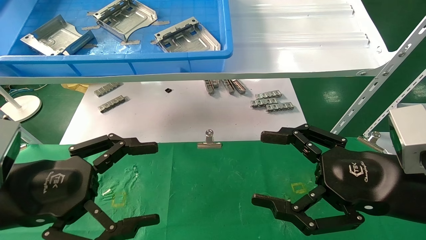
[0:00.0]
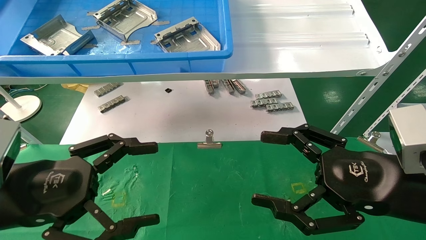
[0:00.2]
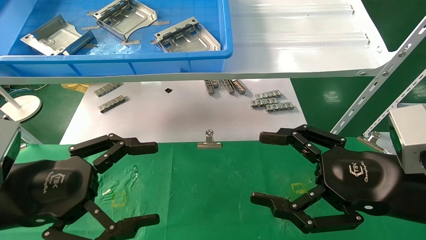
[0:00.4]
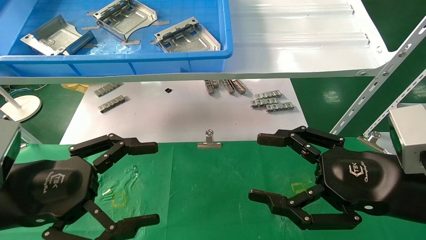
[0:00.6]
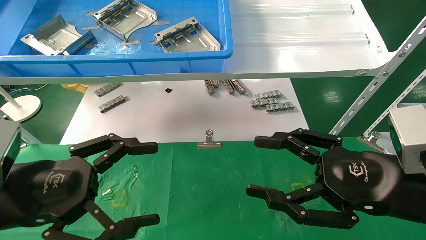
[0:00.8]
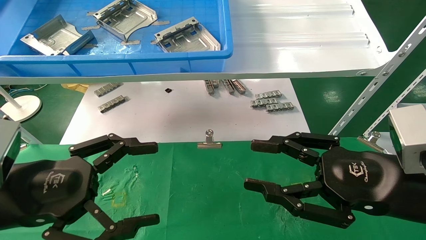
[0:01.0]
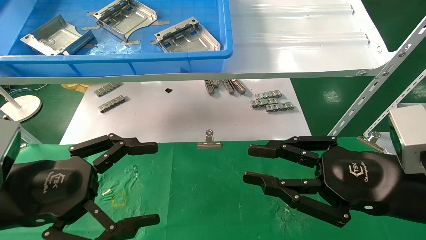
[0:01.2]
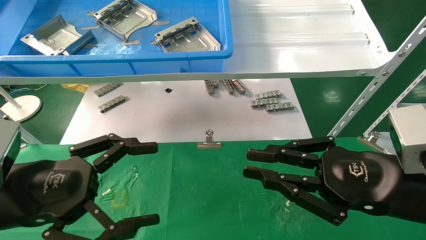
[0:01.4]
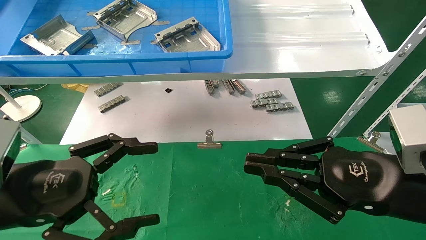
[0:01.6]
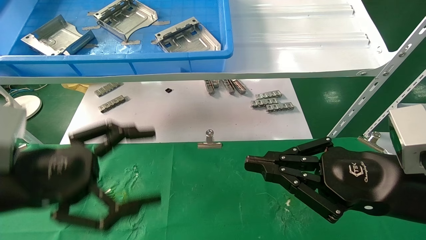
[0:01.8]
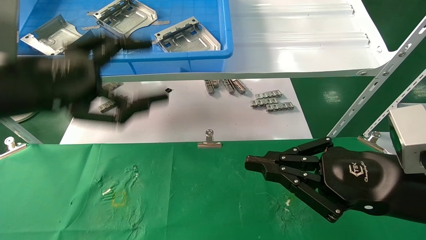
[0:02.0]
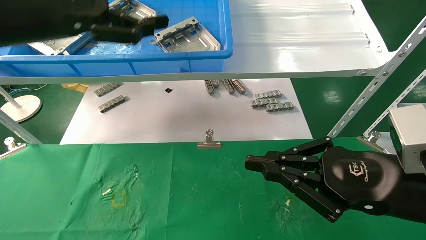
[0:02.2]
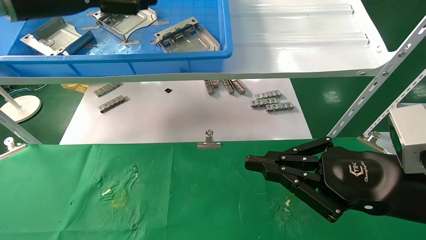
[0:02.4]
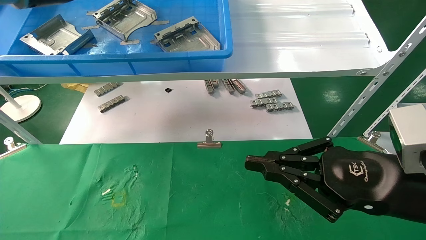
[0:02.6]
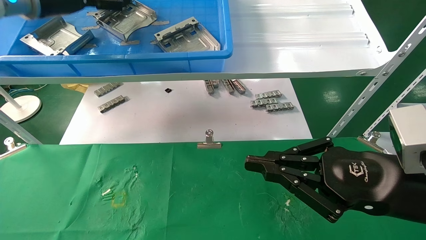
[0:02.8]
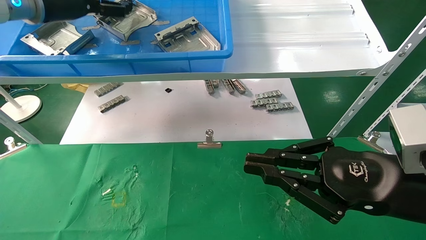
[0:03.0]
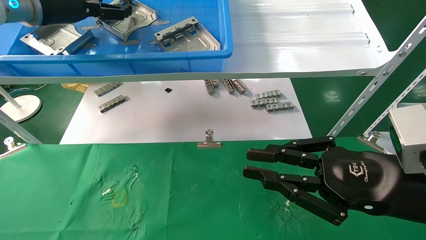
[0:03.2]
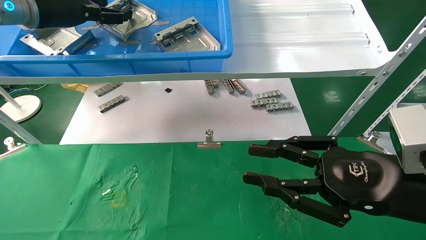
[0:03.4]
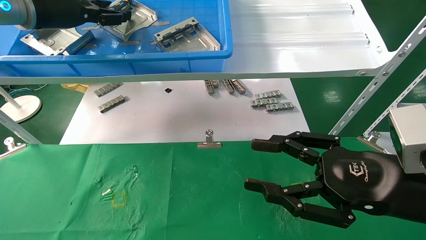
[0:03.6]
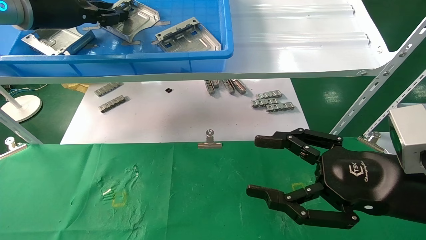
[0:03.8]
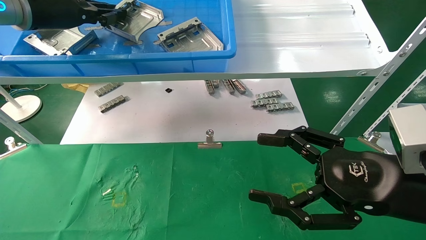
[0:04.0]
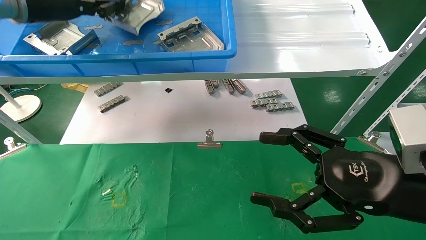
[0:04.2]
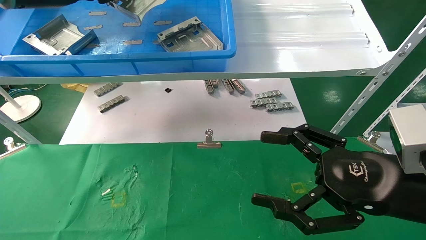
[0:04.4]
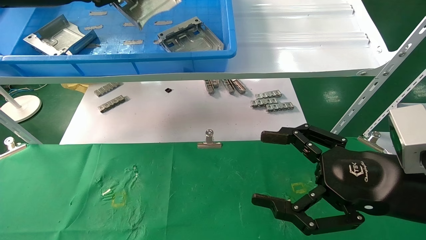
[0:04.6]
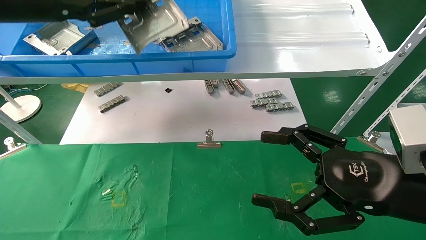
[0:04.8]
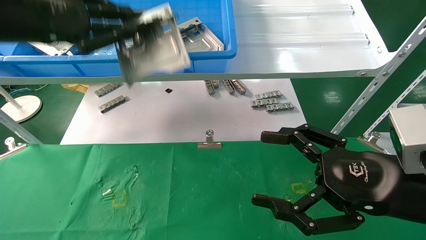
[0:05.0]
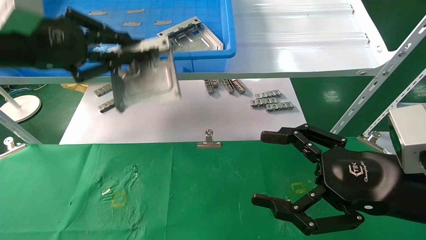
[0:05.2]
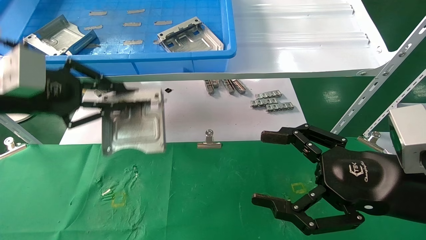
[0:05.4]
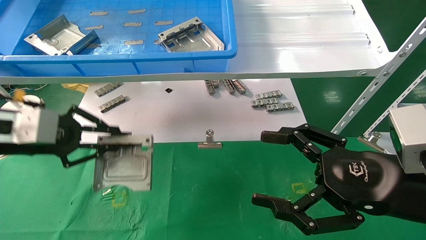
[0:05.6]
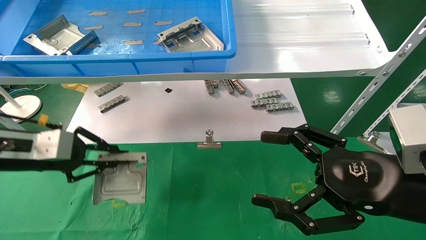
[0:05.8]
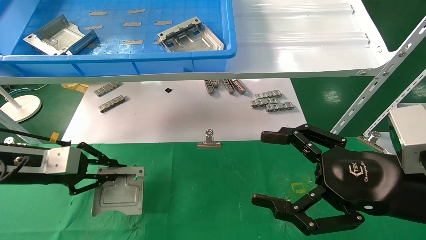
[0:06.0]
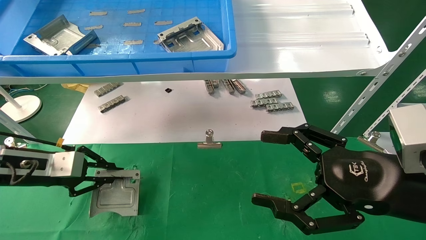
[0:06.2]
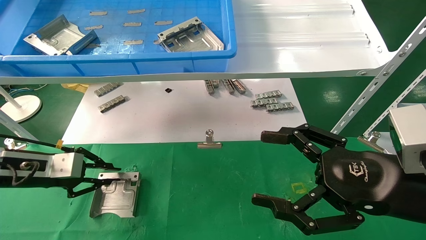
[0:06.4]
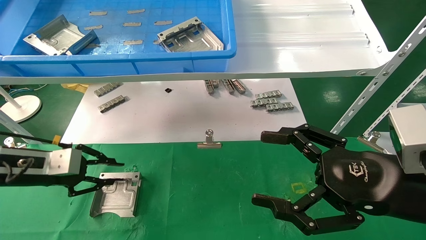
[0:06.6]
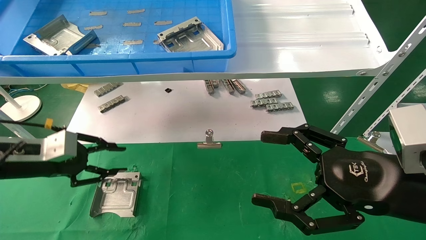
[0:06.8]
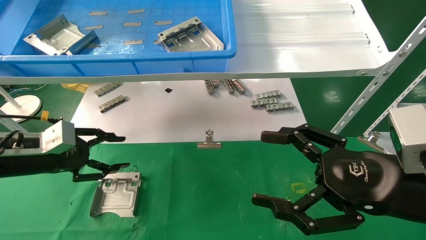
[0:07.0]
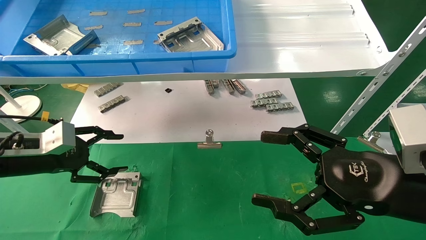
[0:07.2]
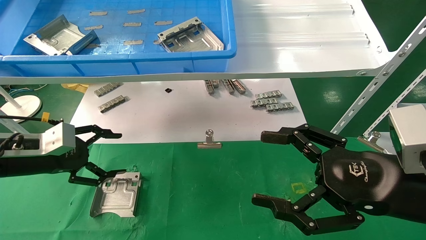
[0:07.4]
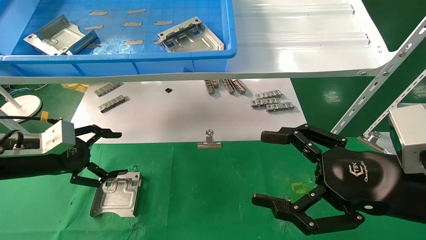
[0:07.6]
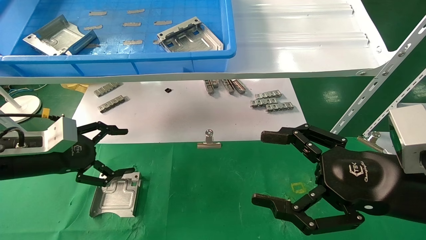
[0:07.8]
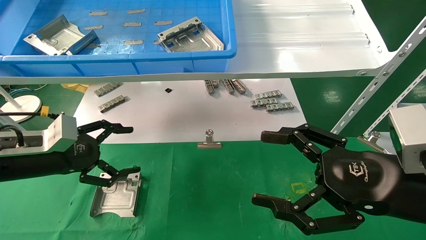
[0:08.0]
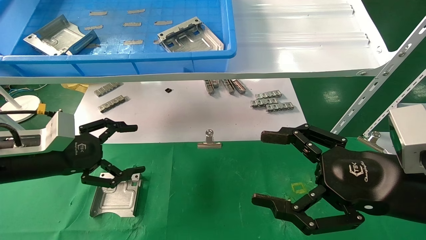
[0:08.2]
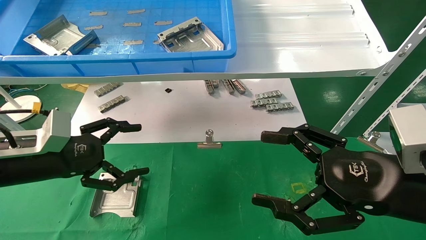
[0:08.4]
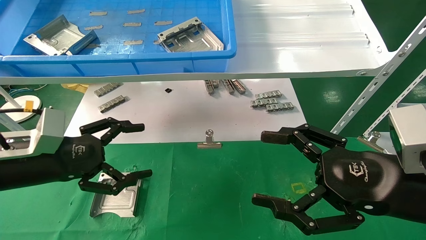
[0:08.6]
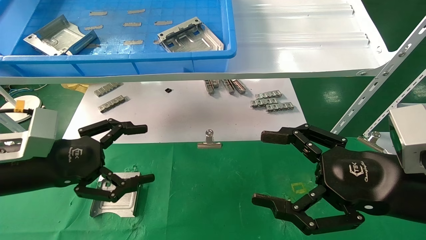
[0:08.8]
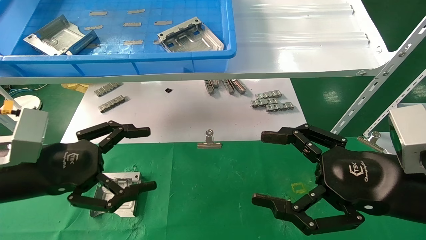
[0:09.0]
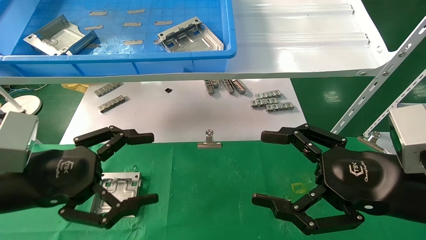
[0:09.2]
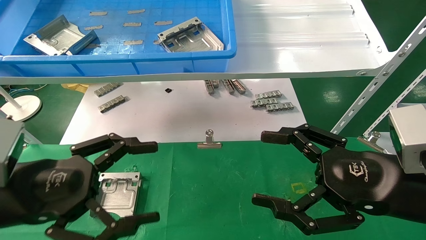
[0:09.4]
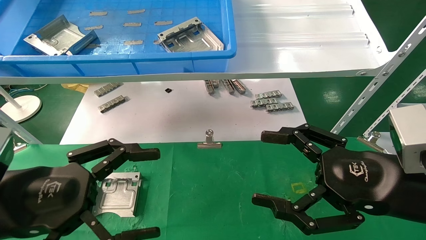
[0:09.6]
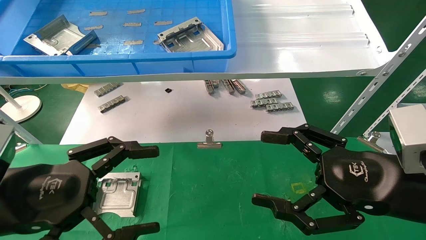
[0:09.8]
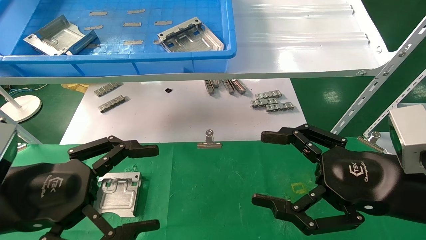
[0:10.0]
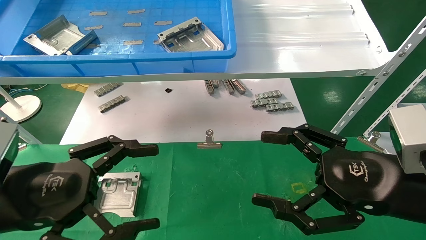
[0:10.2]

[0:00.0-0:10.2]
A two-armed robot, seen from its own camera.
Task of the whole recording: use the mechanical arm to pick up the parts and place them on the table.
Step, 1.4 to 4.2 s: Pick up the hard drive bracket from the feeding area.
Step, 4.4 to 7.2 s: Place the hard drive bracket into the box.
0.0 to 1.4 s: The right gripper closes up.
1.4 to 3.0 s: The left gripper goes approximately 35 cm upward and forward.
3.0 to 4.4 s: The right gripper opens up; the left gripper closes.
4.4 to 5.8 s: The left gripper is displaced downward by roughly 25 cm.
5.8 to 7.2 s: The left gripper opens.
7.2 to 8.8 s: The left gripper heads backward and to the right, covering approximately 10 cm, and opens up.
8.8 to 10.2 s: The left gripper shifts some 10 cm backward.

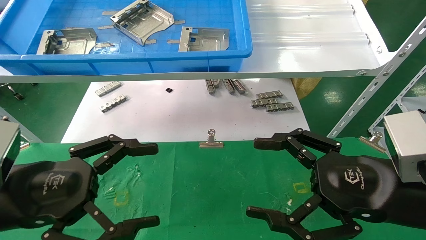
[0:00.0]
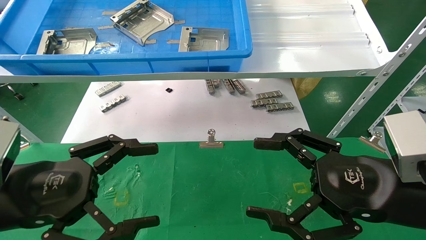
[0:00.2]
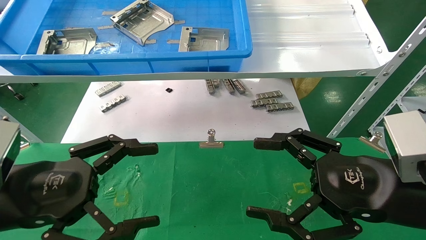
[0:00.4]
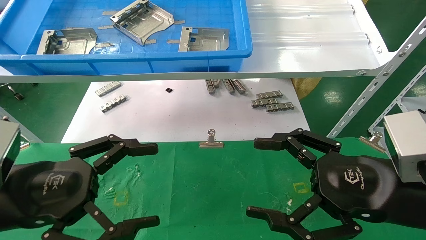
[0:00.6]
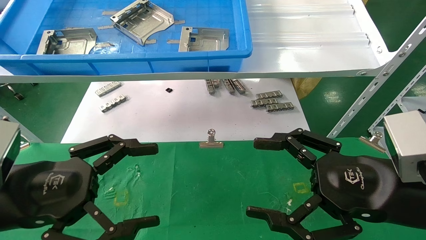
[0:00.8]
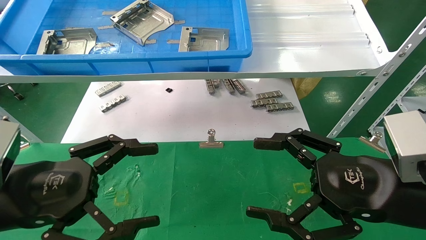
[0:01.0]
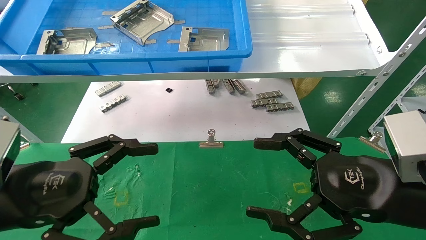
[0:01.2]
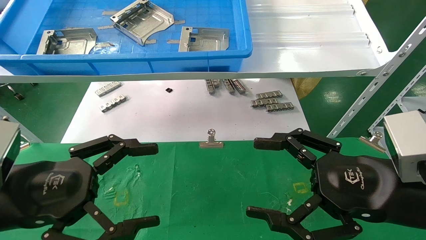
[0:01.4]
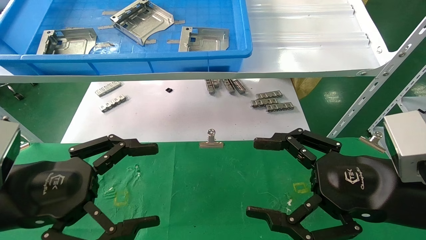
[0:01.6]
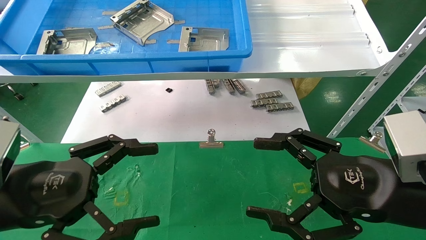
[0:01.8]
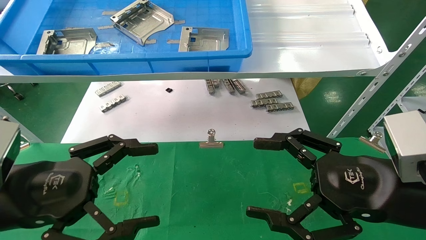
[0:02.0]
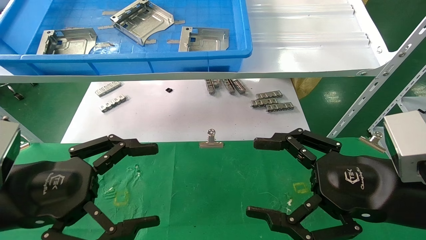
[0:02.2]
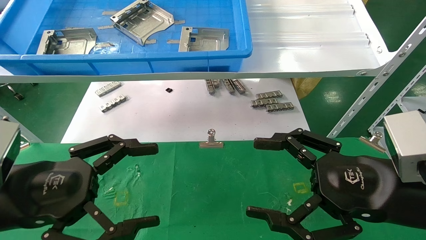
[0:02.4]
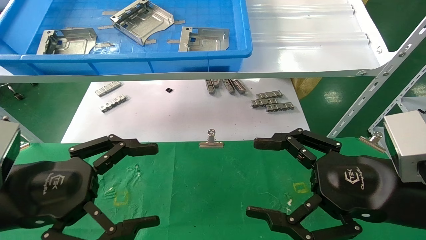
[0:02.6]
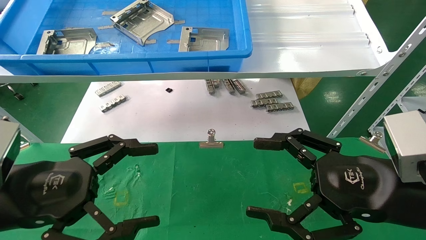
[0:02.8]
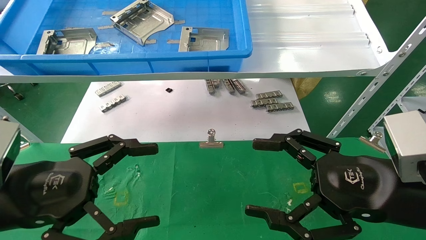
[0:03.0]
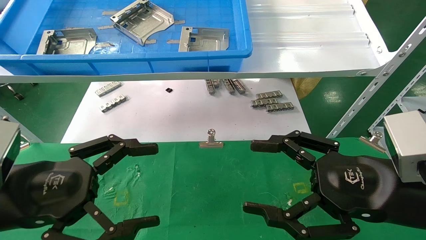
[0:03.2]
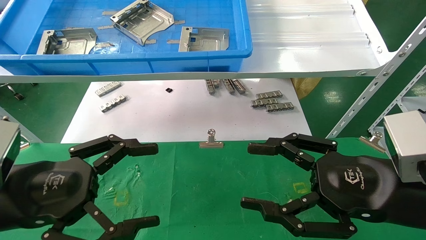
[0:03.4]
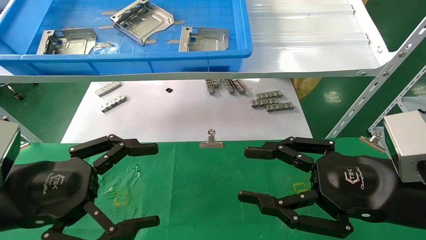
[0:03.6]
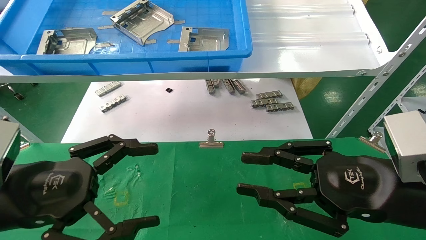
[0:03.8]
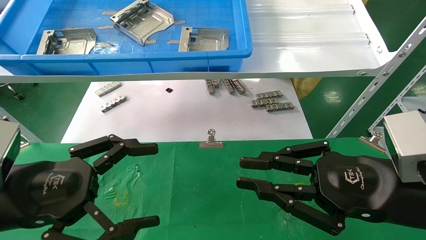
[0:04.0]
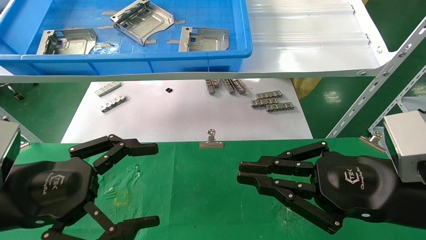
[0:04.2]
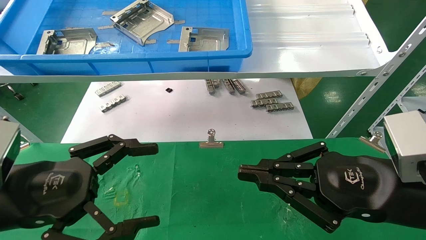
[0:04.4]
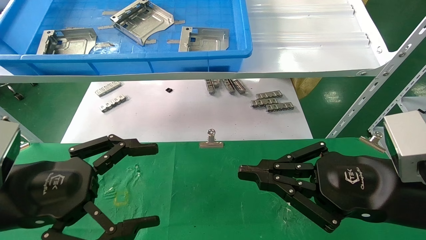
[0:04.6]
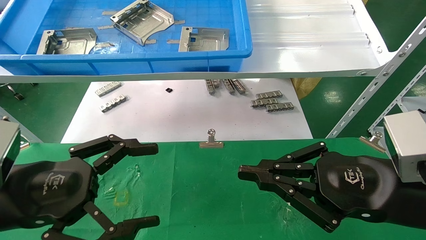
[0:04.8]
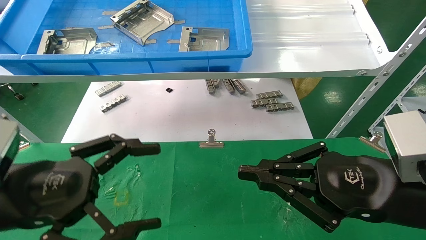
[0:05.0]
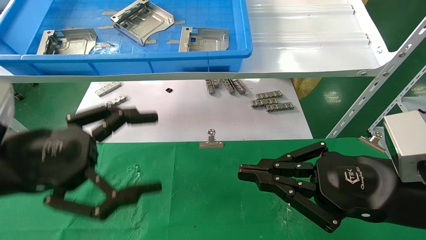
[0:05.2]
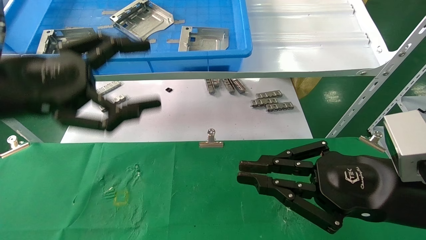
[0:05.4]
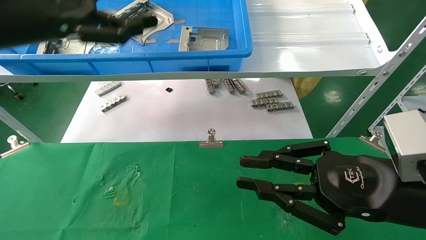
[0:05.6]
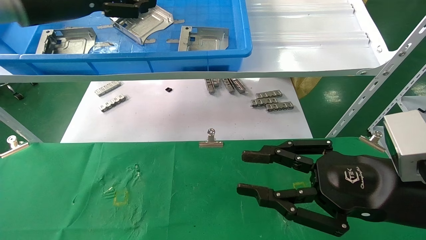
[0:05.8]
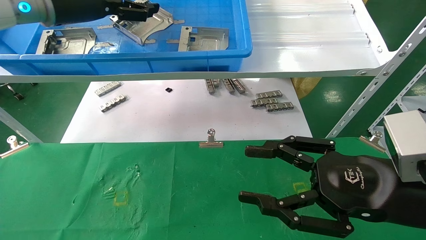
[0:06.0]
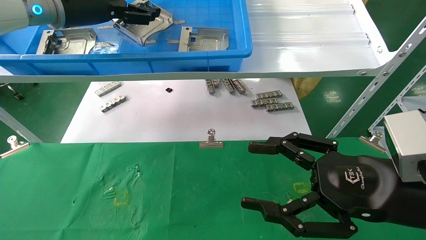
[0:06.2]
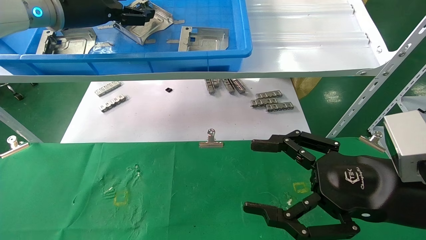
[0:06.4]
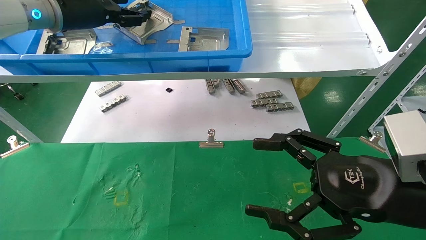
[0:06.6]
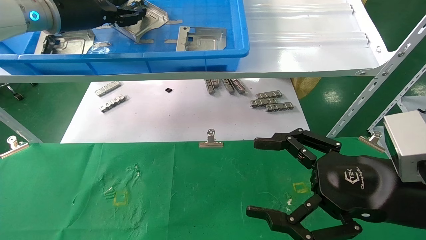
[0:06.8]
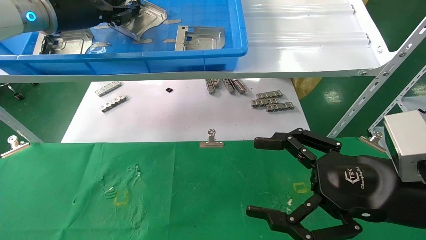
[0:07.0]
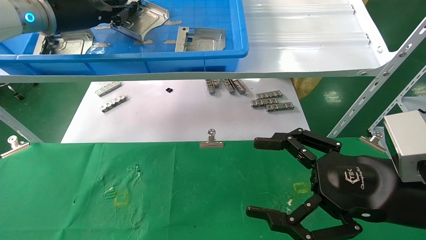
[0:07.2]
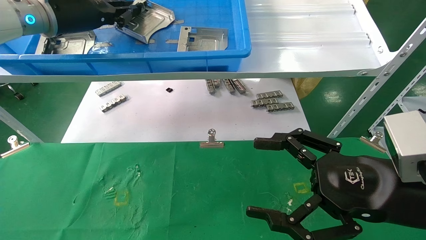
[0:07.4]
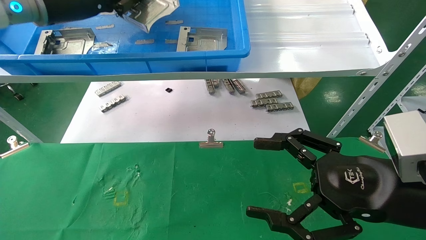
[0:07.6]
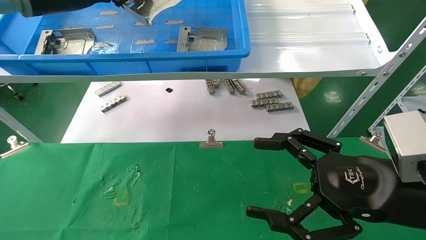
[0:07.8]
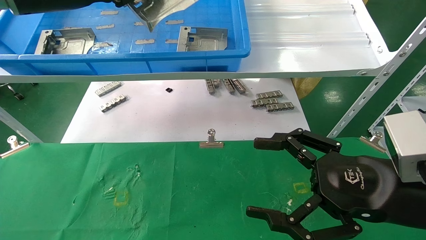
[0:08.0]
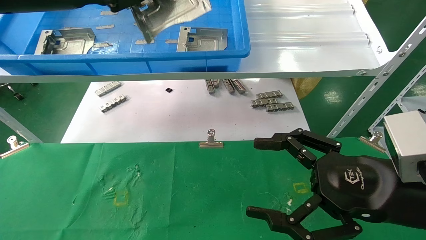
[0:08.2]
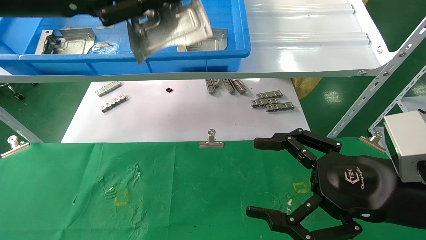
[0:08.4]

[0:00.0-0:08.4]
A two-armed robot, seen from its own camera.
Task of the whole recording: use the mechanical arm to pick up the parts and place them on the table.
Step, 5.2 to 7.2 s: Pick up the hard drive bracket from the feeding area.
0.0 to 2.8 s: Both grippers stay about where they are.
2.8 to 4.2 s: The right gripper closes up.
4.2 to 5.6 s: The left gripper shifts some 20 cm upward and forward.
5.6 to 7.0 s: The right gripper opens up. The left gripper moves forward, approximately 10 cm, and closes its fingers.
7.0 to 8.4 s: The left gripper shifts roughly 15 cm backward, and closes up.
